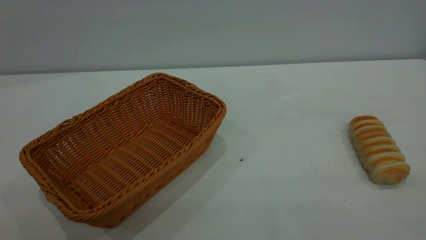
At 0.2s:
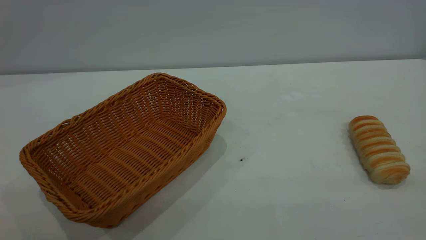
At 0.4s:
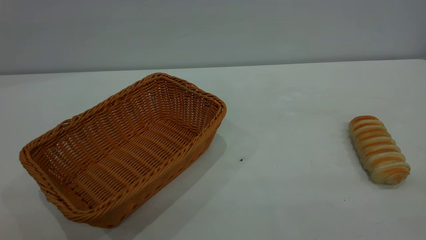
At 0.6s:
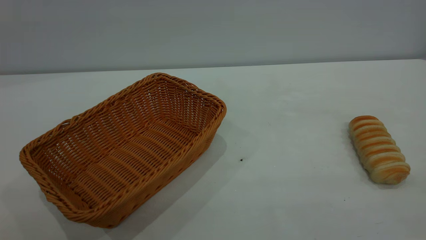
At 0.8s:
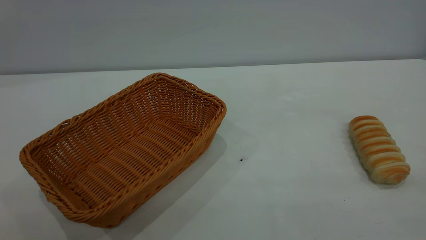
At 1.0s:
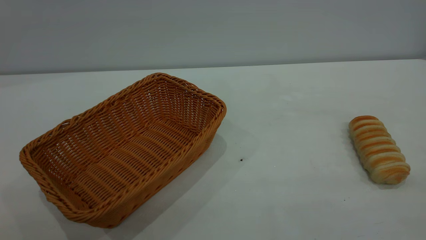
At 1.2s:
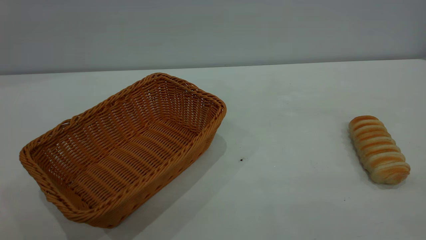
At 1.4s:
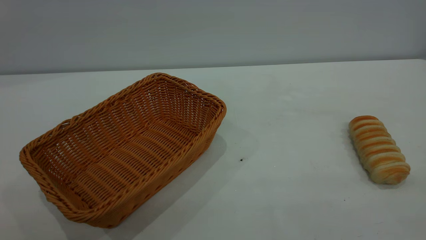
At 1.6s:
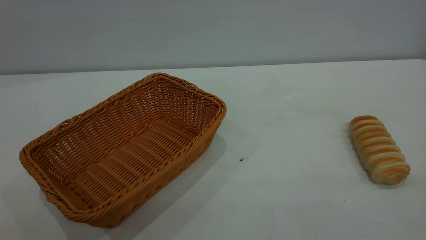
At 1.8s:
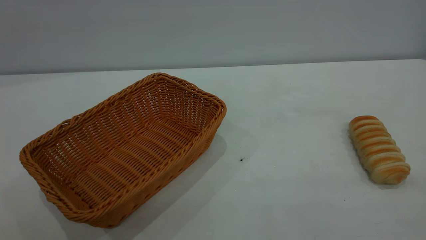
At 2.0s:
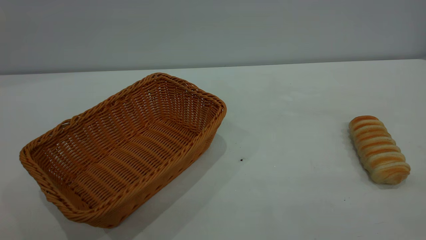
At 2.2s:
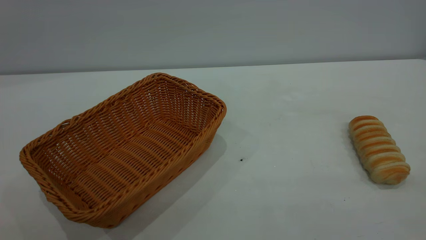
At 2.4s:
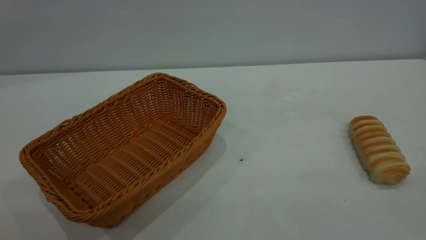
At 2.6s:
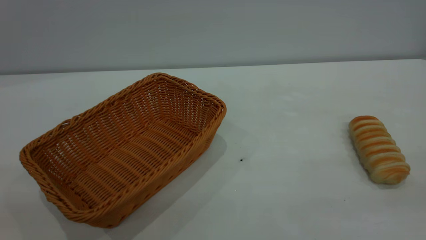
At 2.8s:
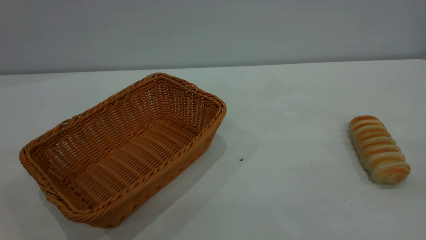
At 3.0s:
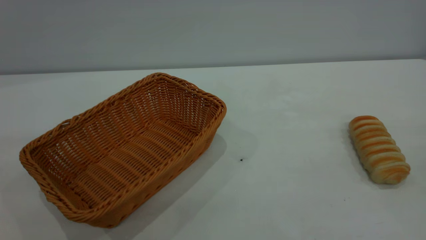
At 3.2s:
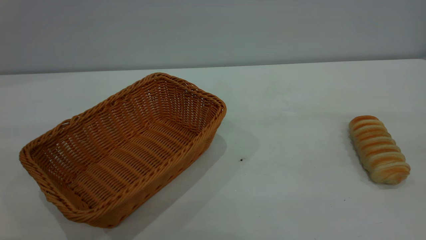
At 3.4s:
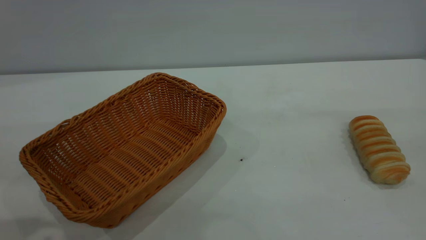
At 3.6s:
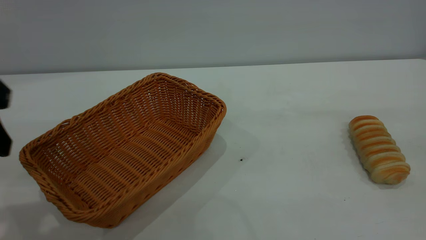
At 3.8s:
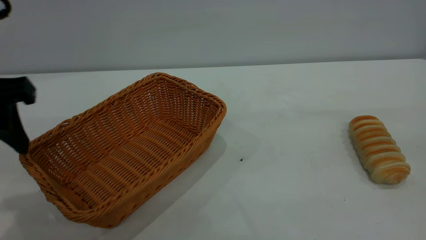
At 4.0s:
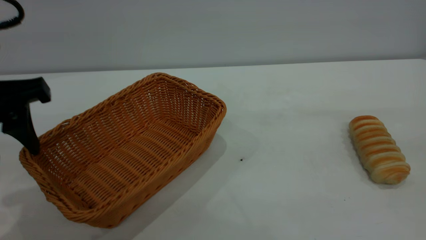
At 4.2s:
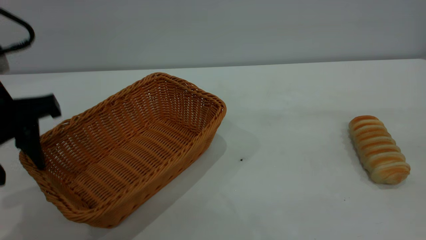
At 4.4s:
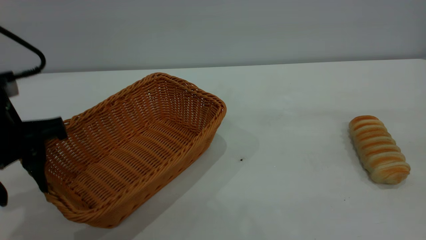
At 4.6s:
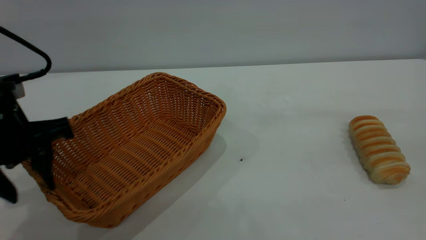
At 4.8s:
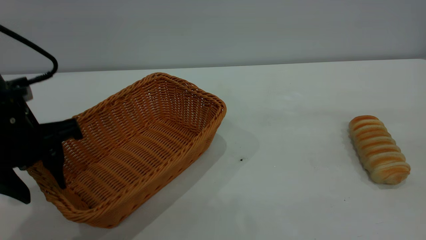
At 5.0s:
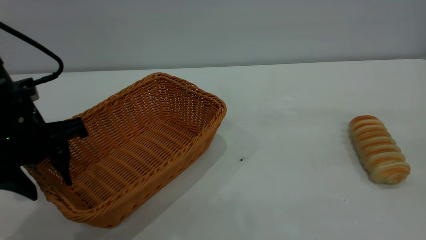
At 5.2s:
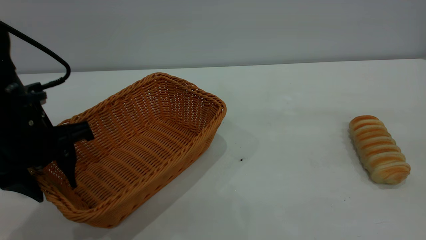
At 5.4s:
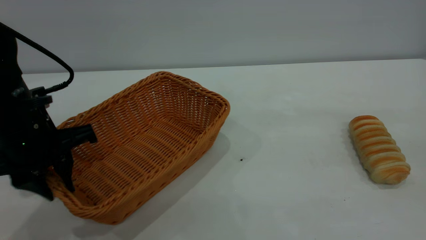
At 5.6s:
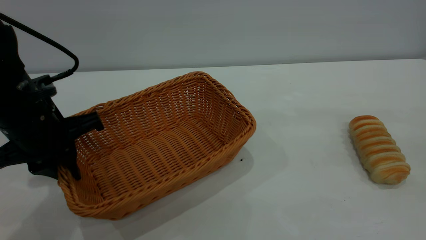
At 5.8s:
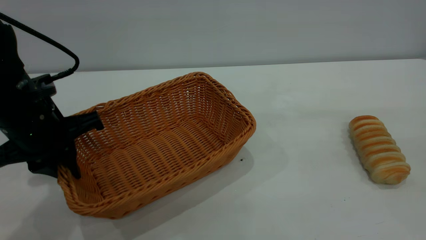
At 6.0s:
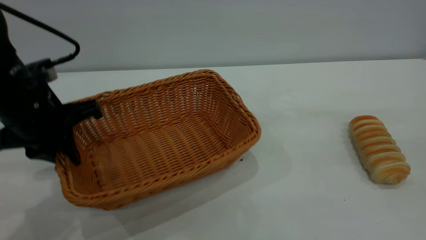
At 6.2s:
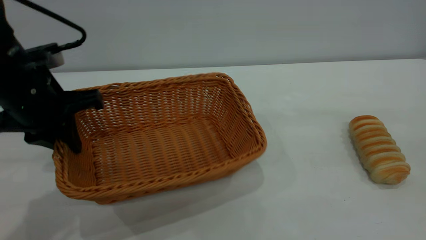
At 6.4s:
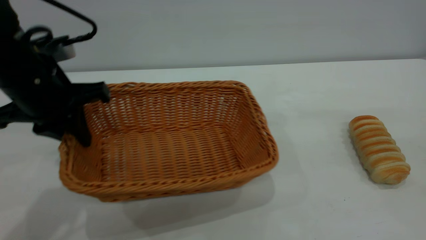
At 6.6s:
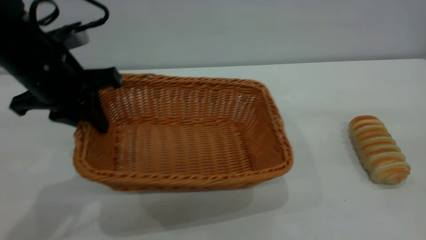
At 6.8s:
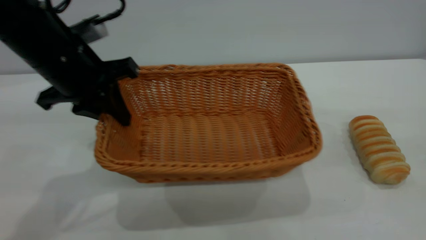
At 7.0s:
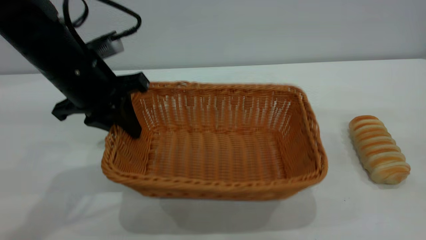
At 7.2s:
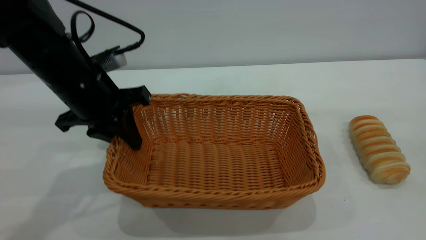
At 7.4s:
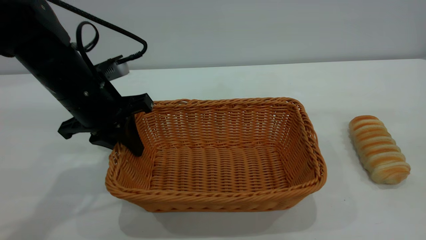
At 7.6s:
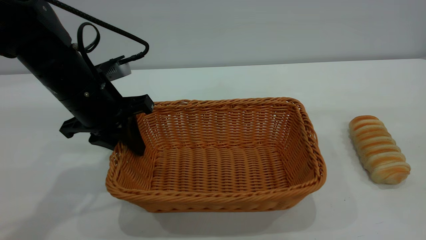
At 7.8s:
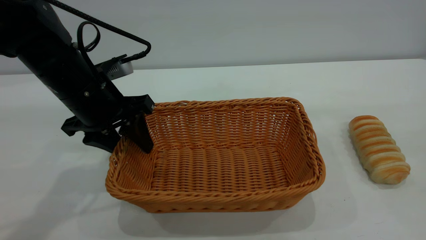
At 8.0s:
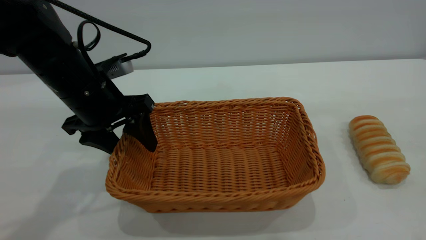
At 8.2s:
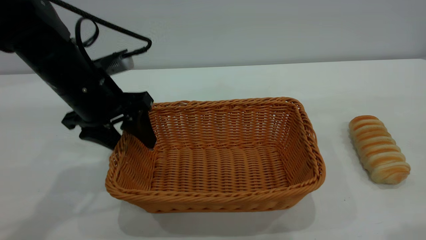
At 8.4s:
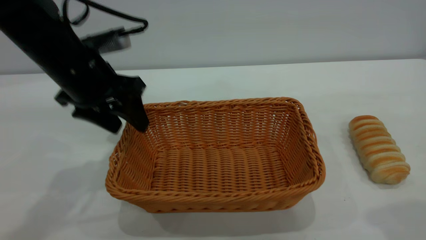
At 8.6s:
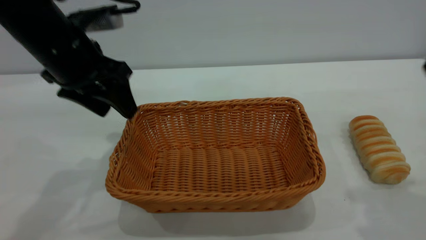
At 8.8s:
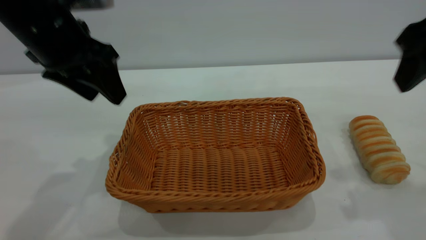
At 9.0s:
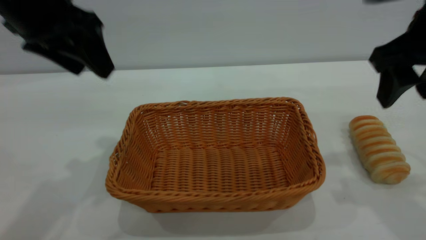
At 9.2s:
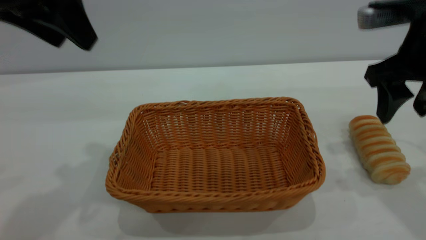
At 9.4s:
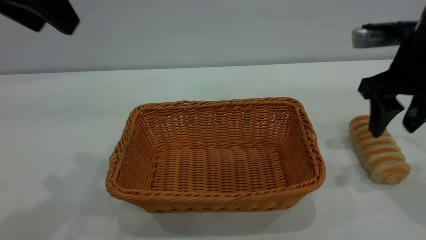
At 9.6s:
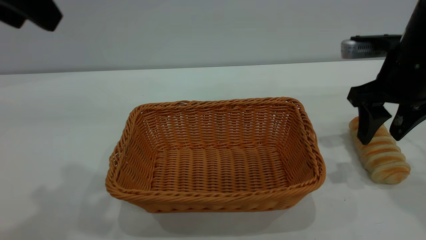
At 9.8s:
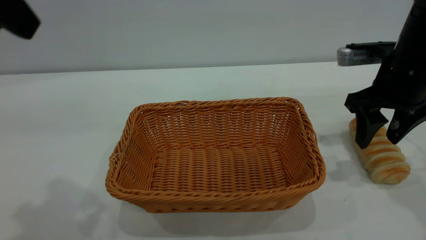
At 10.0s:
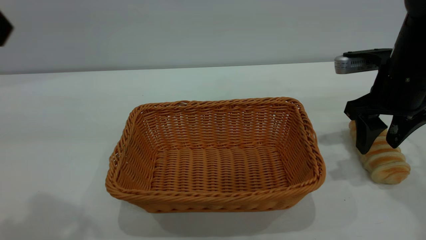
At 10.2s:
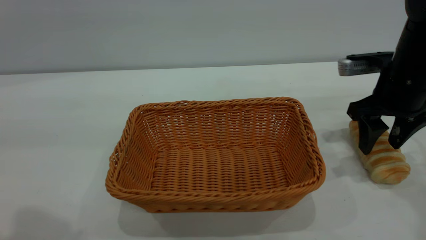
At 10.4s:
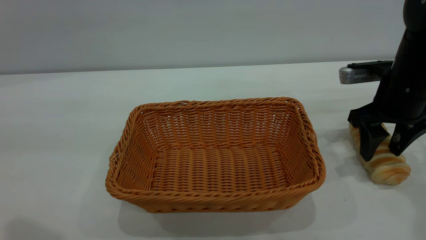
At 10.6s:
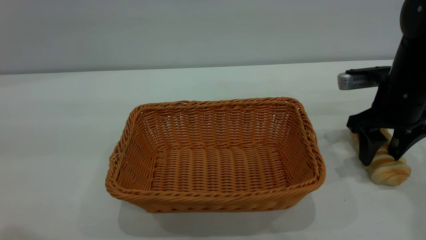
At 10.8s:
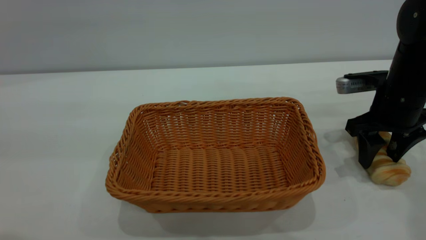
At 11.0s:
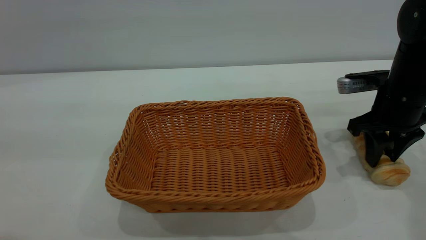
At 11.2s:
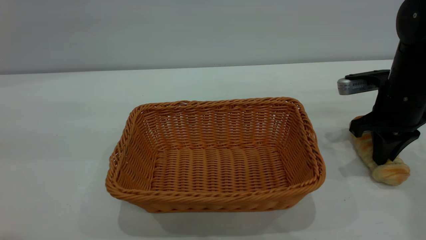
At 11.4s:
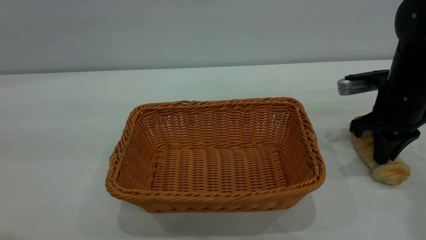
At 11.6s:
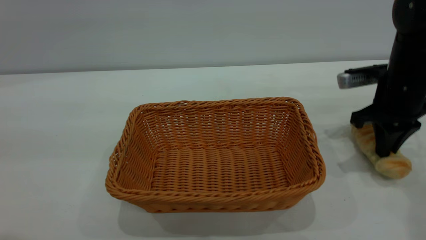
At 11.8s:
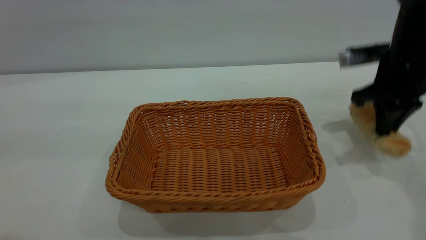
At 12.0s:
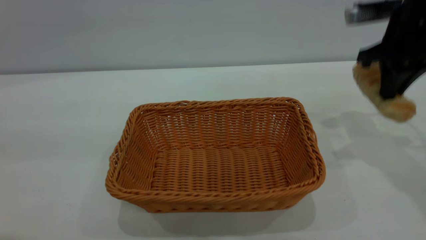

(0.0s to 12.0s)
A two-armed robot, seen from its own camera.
Task of the whole recording: One hand grasps the yellow basket and places it in the middle of the table, while the other hand picks up the long bread and puts it into the yellow basket.
Step, 0.0s - 8.8s: Move the basket to the center of view.
3.0s - 4.4s: The left gripper shifts about 20 cm downward and forward.
4.4s - 6.0s: The left gripper closes up.
6.0s - 7.6s: The left gripper shifts roughly 5 cm forward.
7.6s - 9.0s: The left gripper heads upward, covering approximately 15 cm, and opens; the right gripper is displaced forward and downward by roughly 25 cm.
9.0s - 10.4s: The left gripper shifts some 20 cm backward and upward. The right gripper travels downward and forward by roughly 15 cm.
10.4s - 12.0s: The right gripper moves upward, some 10 cm, and closes up.

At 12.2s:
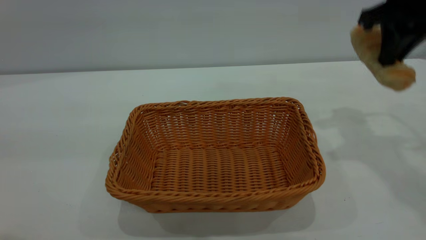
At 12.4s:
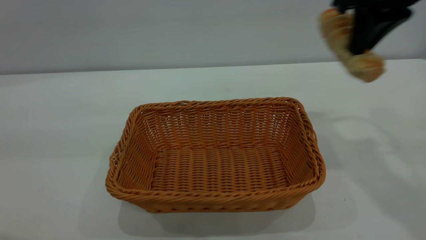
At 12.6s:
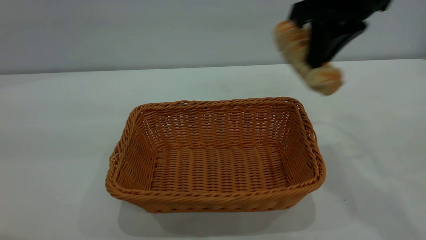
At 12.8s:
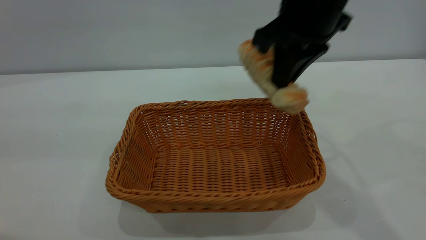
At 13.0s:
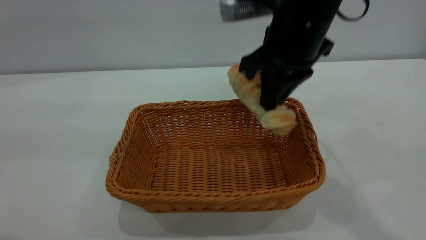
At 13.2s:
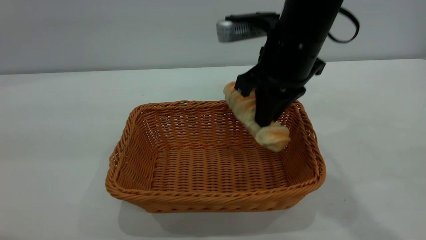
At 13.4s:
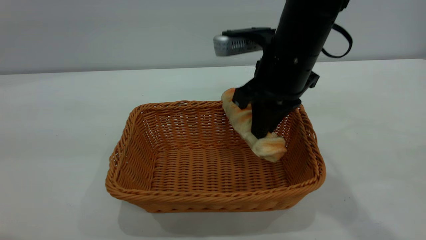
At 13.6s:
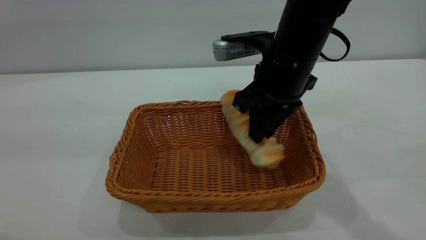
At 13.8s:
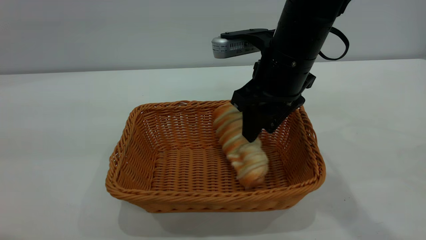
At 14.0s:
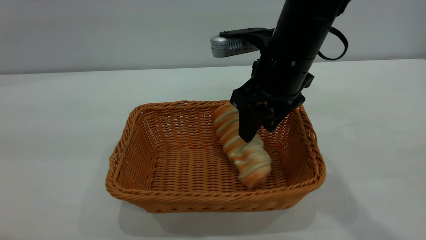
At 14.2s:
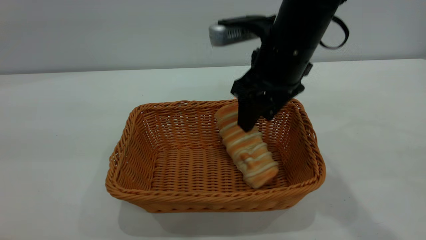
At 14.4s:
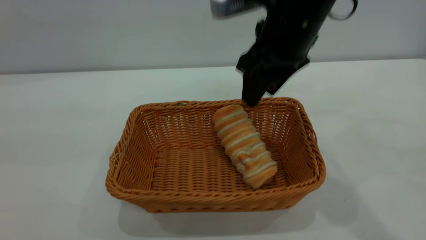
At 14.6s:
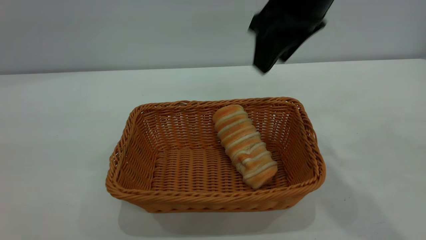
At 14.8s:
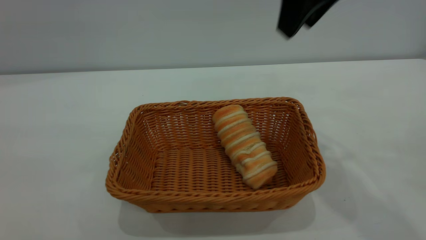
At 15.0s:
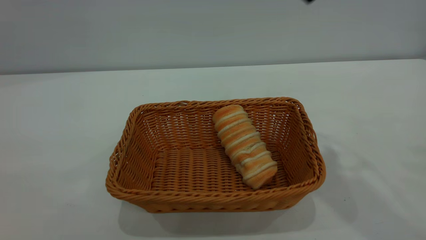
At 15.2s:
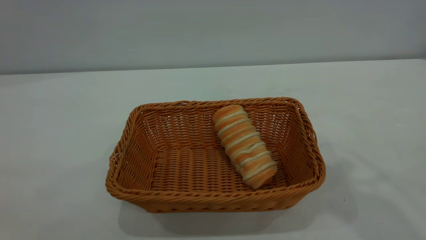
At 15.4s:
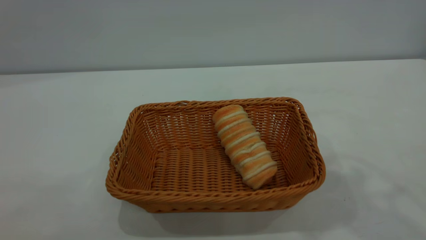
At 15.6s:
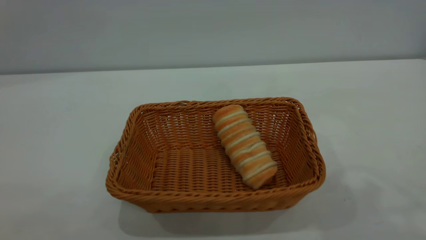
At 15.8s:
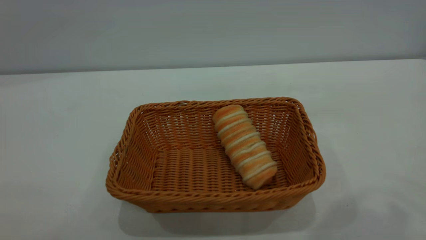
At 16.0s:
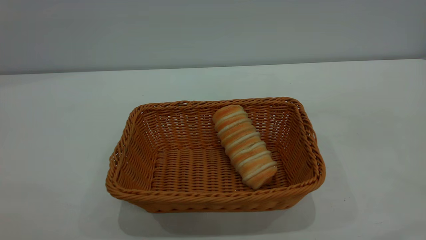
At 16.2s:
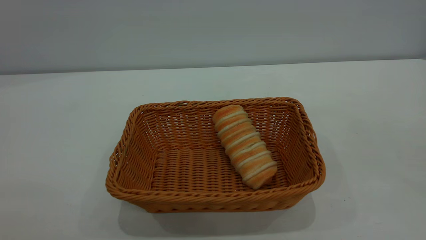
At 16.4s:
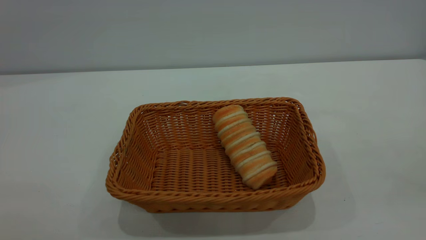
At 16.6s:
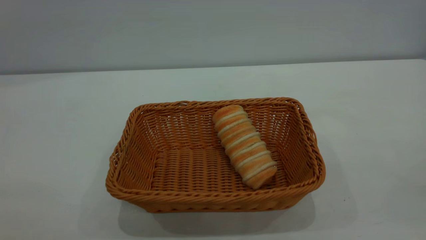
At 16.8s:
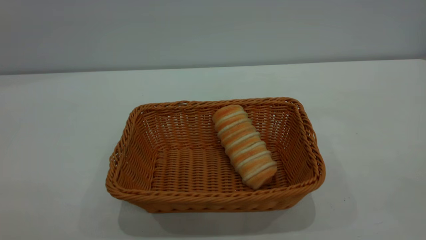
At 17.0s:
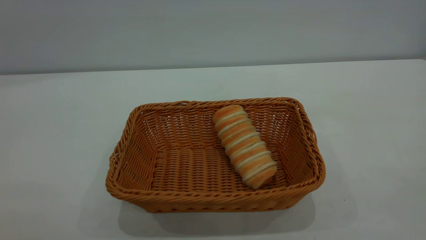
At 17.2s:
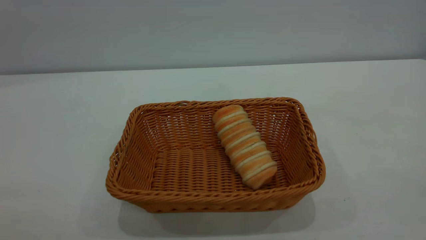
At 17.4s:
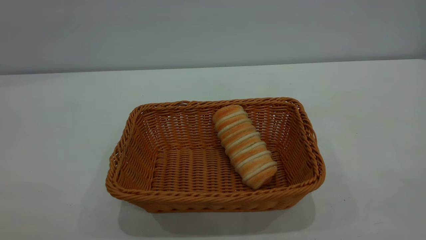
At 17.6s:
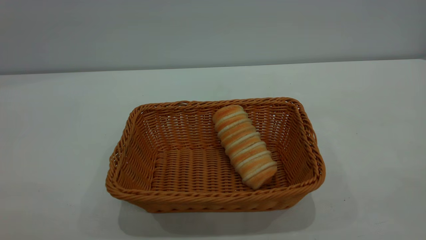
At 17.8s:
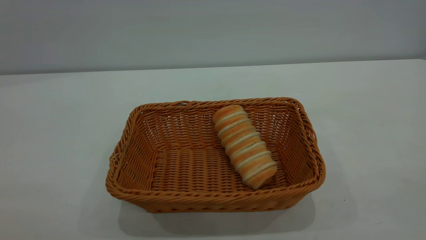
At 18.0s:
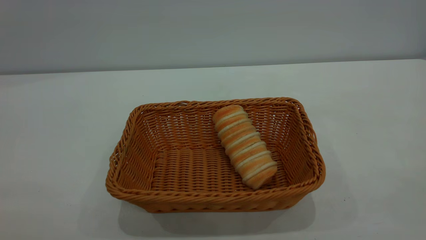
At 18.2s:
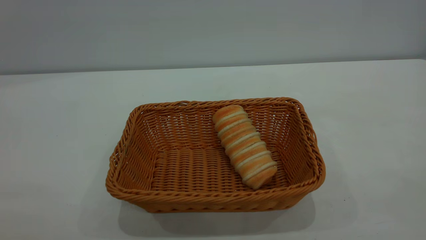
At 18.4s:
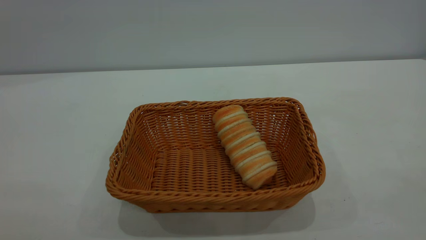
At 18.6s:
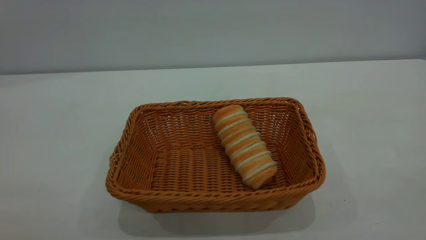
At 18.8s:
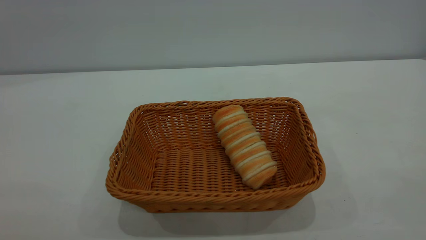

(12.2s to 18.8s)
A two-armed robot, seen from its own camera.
Task of the whole recording: One hand grasps the yellow basket and places it in the middle of the table, while the other hand picks up the long bread and puts it into the yellow basket.
Step, 12.2s - 14.6s: place the bread into the basket.
12.2s - 13.8s: The right gripper travels to the left and downward by about 20 cm, and opens its fingers.
13.8s - 15.4s: The right gripper goes about 30 cm upward and backward. The left gripper moves backward, some 15 cm.
17.2s - 18.8s: Both grippers stay put.
